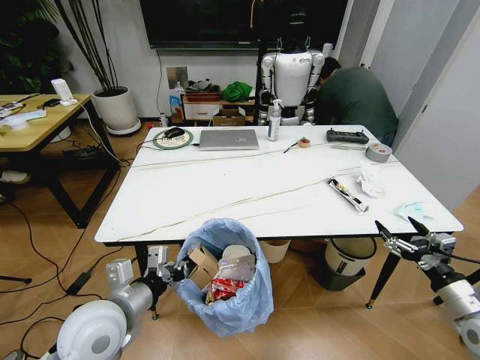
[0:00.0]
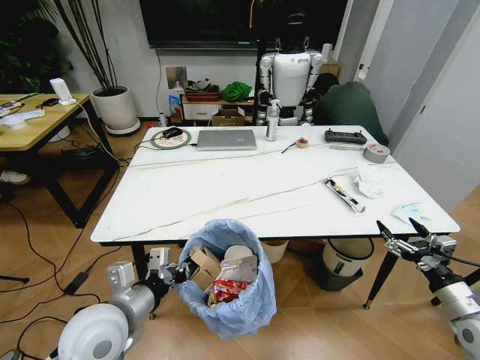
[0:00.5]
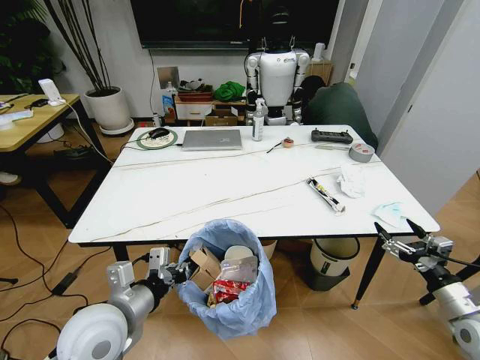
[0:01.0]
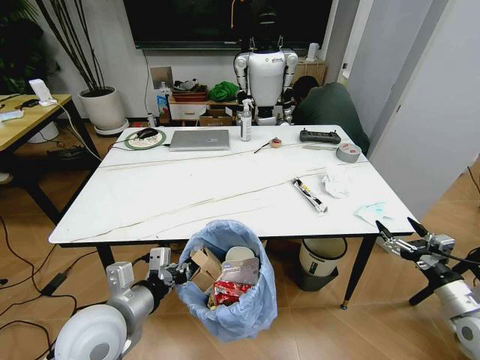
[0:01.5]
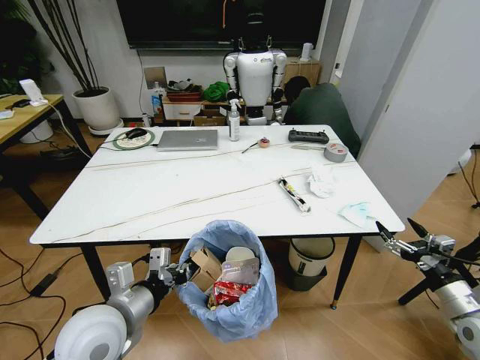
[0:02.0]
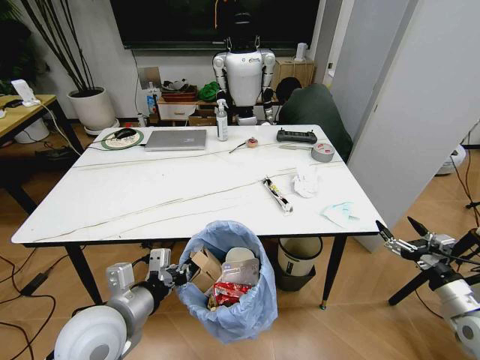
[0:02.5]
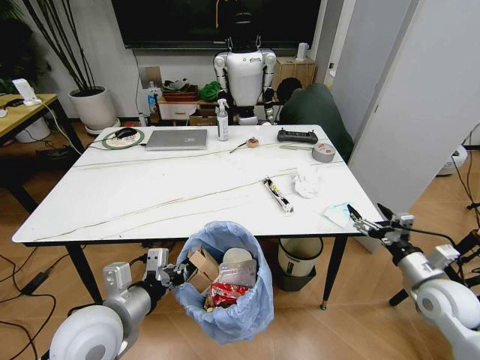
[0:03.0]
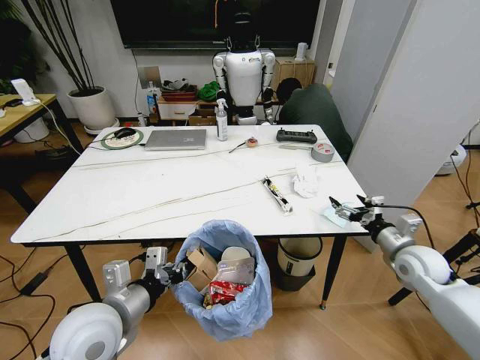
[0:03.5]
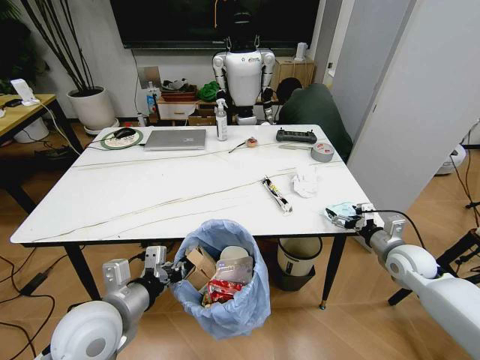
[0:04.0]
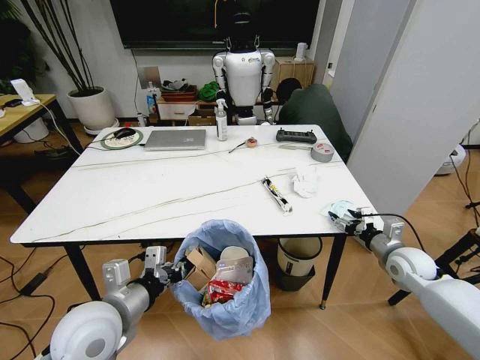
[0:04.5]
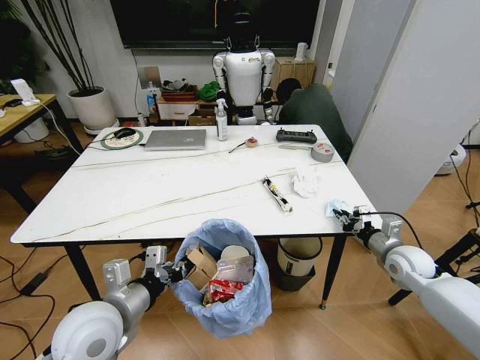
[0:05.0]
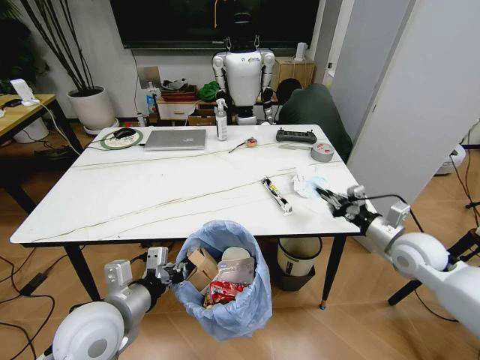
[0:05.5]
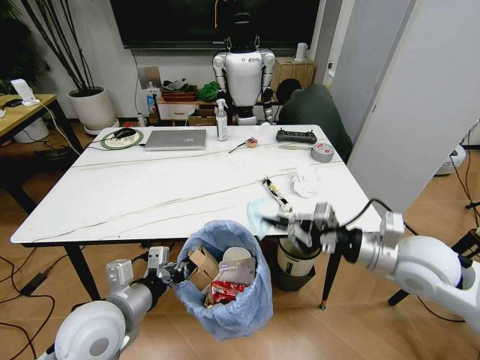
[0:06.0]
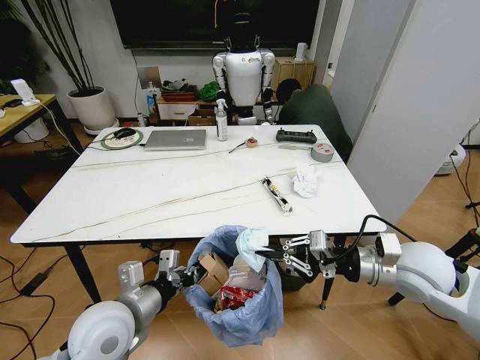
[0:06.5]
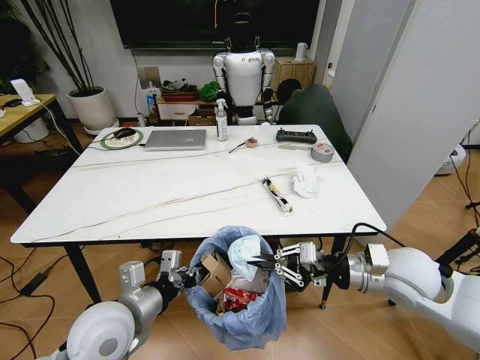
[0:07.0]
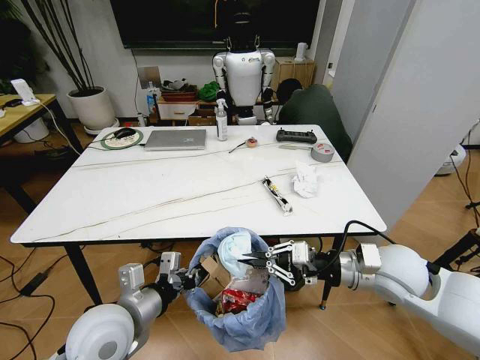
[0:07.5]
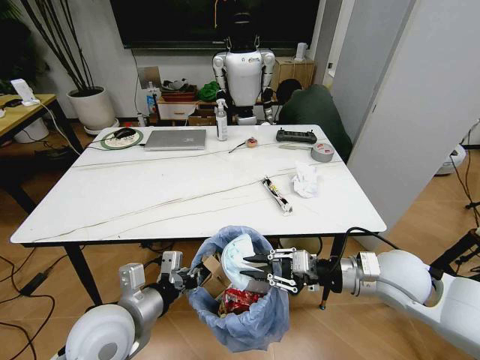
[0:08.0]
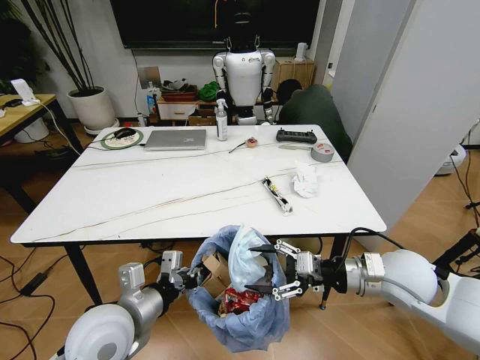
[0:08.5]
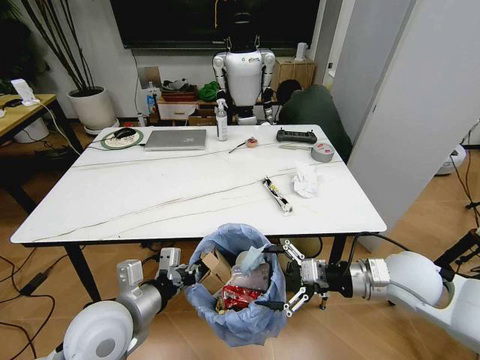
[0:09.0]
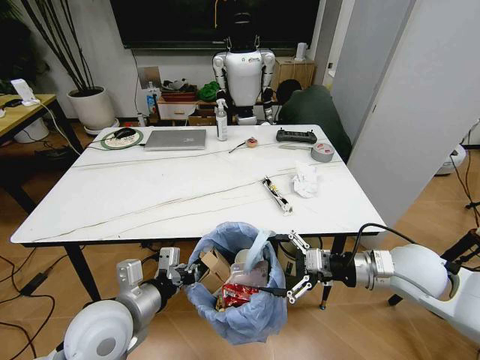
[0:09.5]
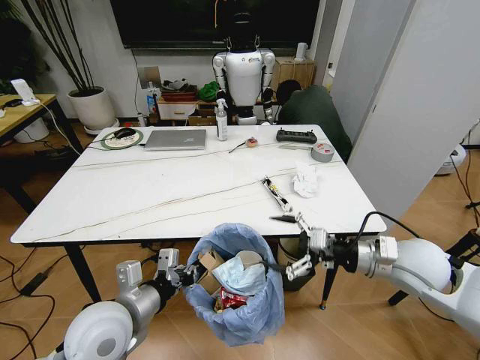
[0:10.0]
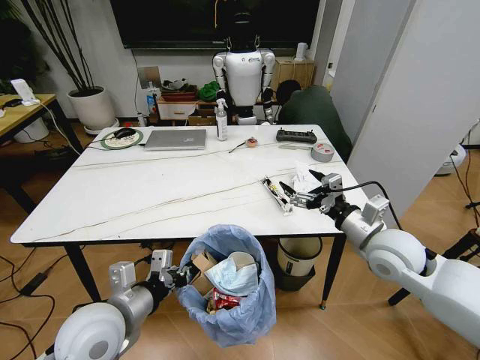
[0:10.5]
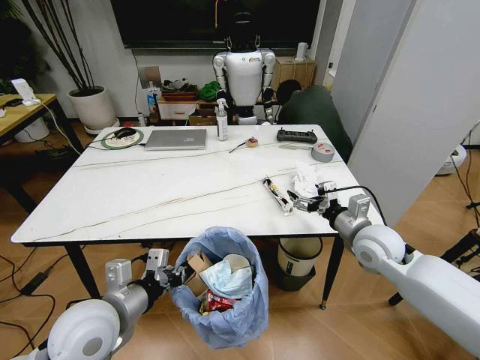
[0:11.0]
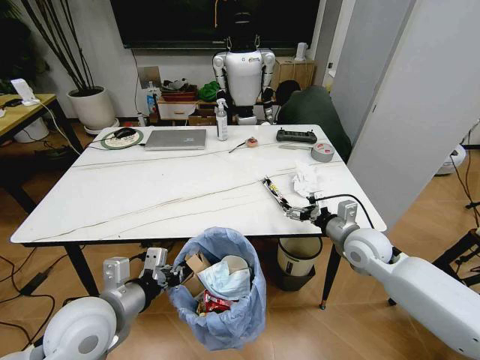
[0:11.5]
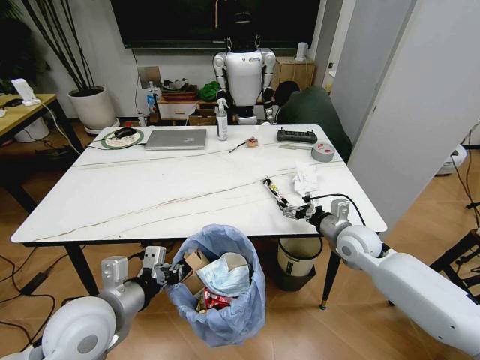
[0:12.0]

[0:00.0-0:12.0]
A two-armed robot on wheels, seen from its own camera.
Task of the whole recording: Pick up the trash bin and place the trash from the table into it.
0:02.0 to 0:04.0: The right gripper heads forward and to the left, covering about 15 cm.
0:04.0 to 0:06.0: The right gripper moves upward, to the left and backward, some 20 cm, and closes its fingers.
0:06.0 to 0:08.0: The right gripper changes place by some 5 cm.
0:08.0 to 0:10.0: The right gripper opens.
0:10.0 to 0:12.0: The right gripper is displaced forward and downward by about 15 cm.

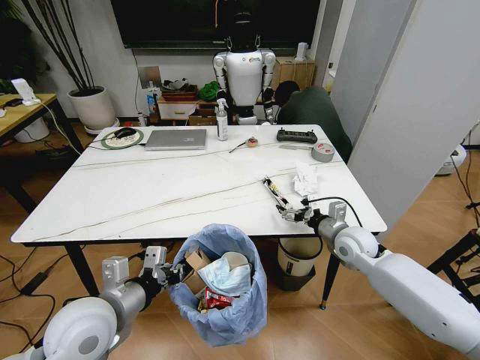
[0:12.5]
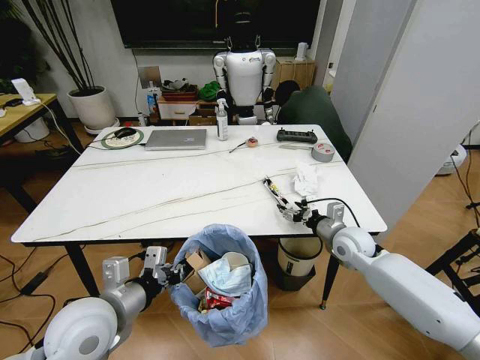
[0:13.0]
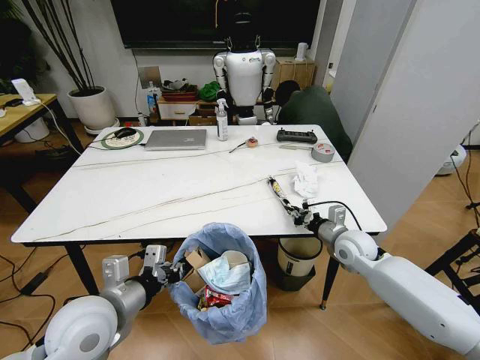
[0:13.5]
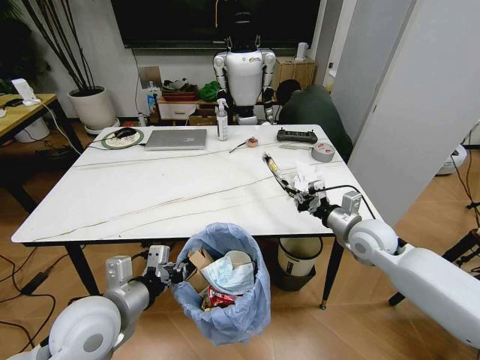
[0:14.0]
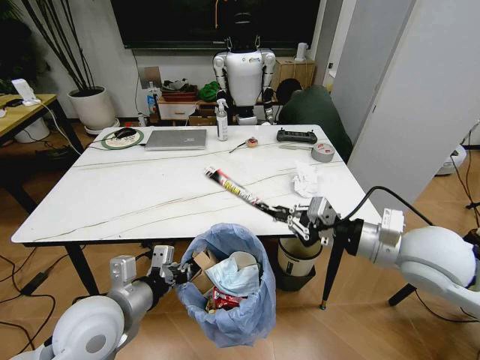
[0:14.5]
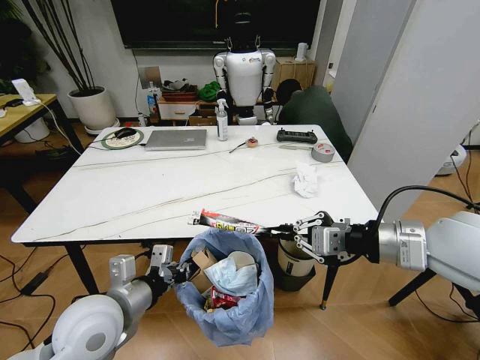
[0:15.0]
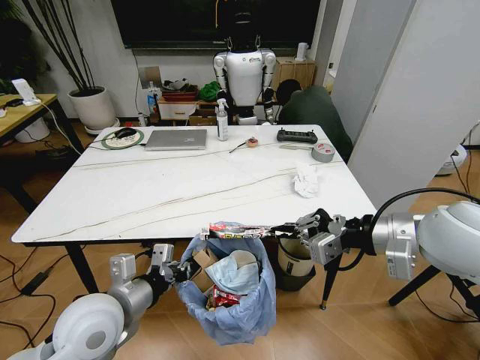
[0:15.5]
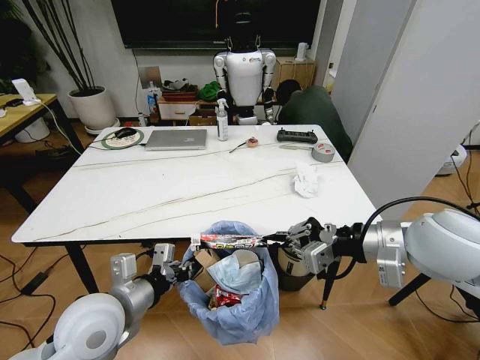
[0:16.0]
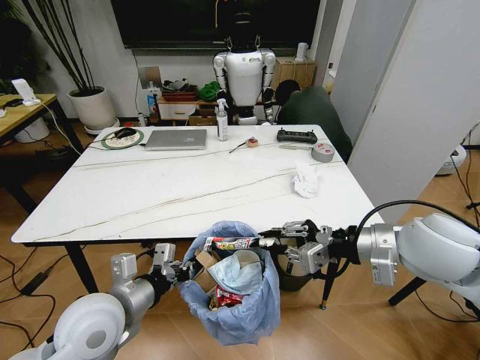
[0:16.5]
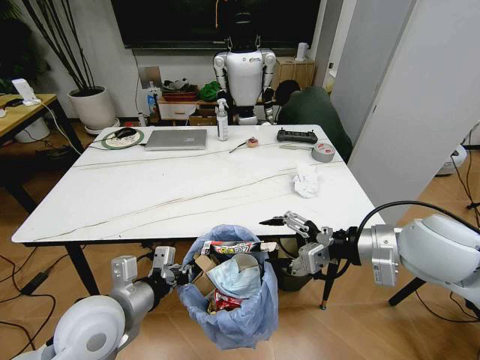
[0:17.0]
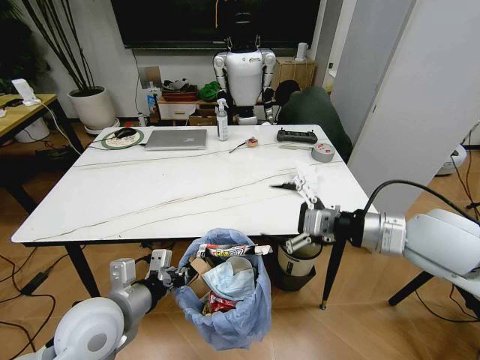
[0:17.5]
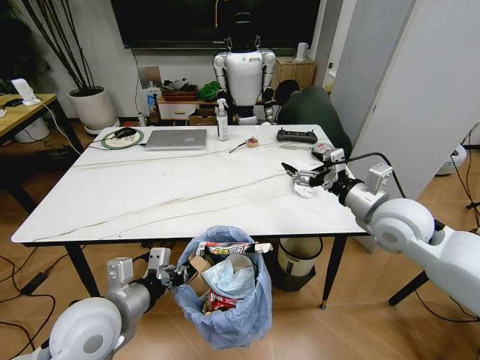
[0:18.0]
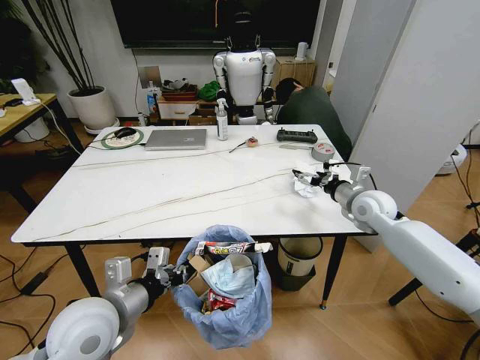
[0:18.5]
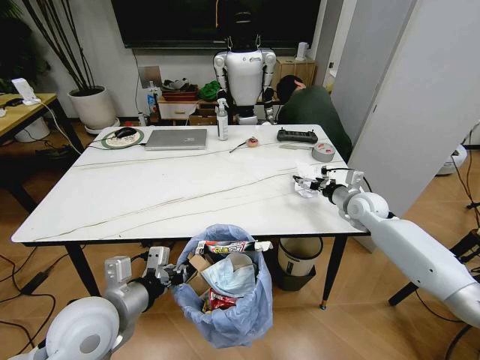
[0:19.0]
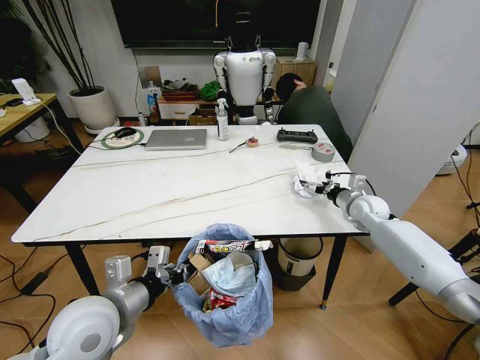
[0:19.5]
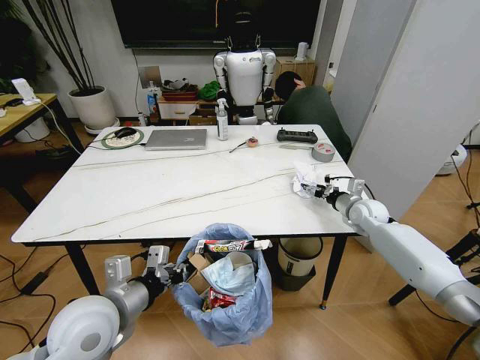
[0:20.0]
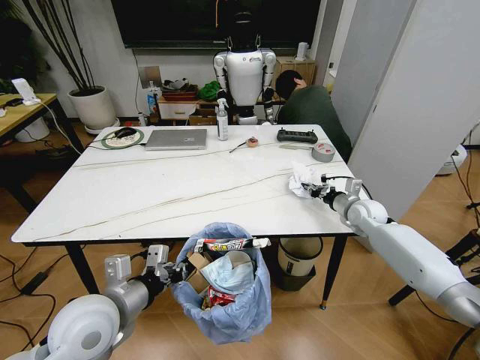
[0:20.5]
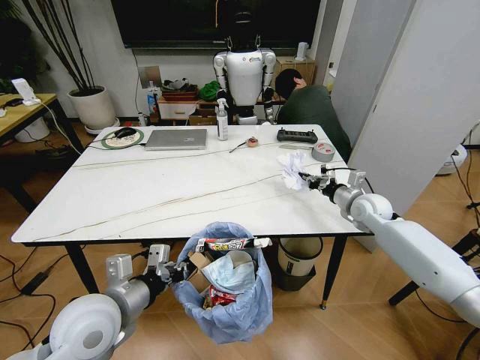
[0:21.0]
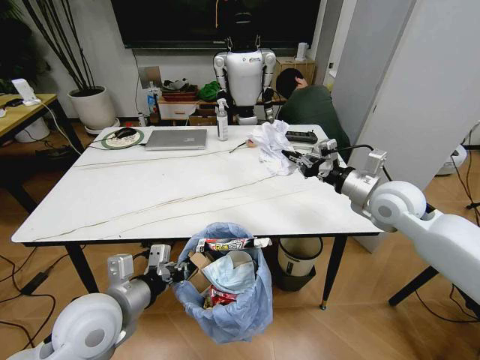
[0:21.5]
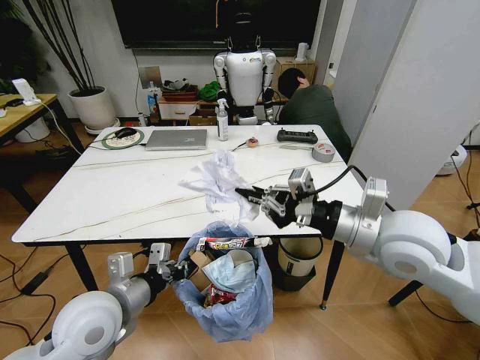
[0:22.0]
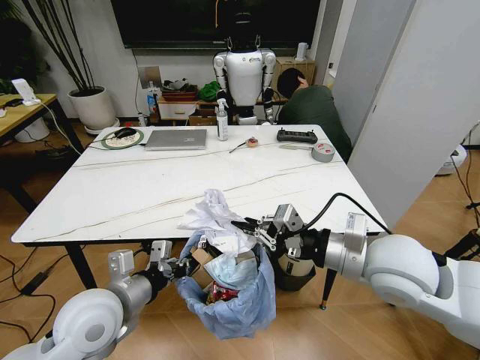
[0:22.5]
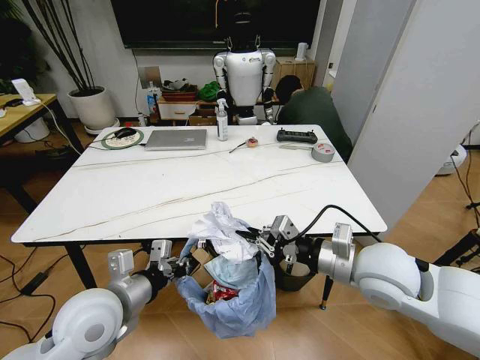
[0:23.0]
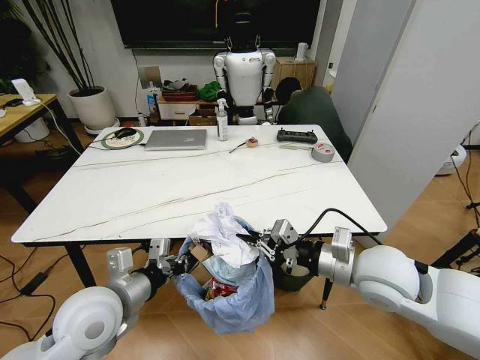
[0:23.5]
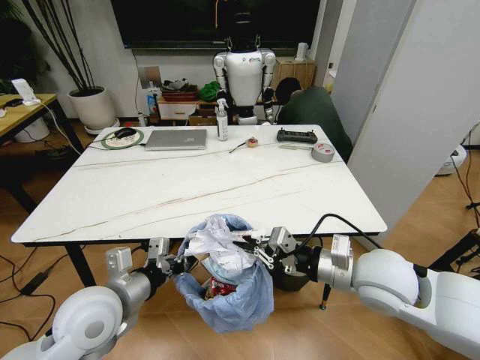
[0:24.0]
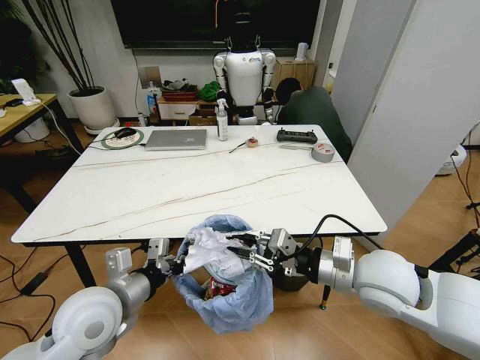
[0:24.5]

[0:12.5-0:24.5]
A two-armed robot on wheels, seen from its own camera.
Task of the whole recording: Pick up the trash bin and place the trash from the table into it.
0:12.5 to 0:14.5: The right gripper travels upward and backward by approximately 20 cm, and closes its fingers.
0:16.5 to 0:18.5: The right gripper travels forward and downward by approximately 20 cm, and opens up.
0:18.5 to 0:20.5: The right gripper moves downward, some 10 cm, and closes up.
0:20.5 to 0:22.5: The right gripper shifts about 35 cm backward, upward and to the left.
0:22.5 to 0:24.5: The grippers move only a little.

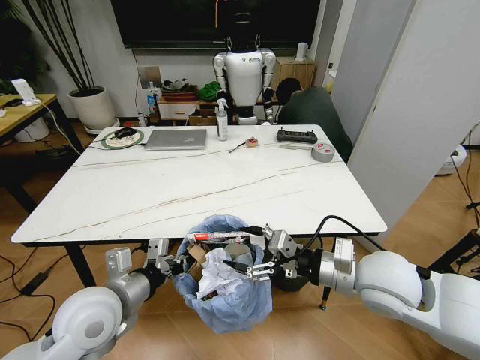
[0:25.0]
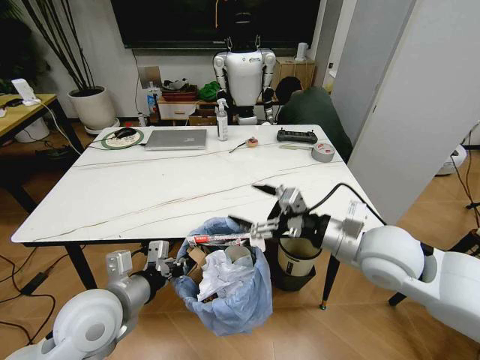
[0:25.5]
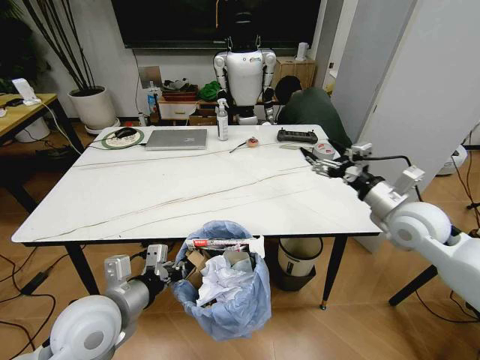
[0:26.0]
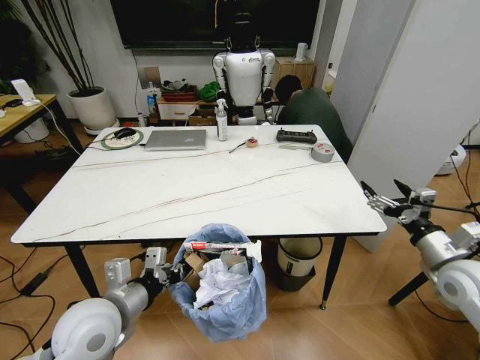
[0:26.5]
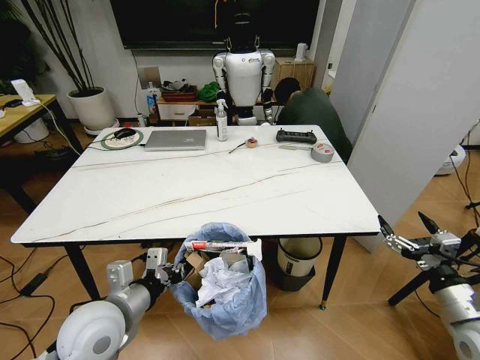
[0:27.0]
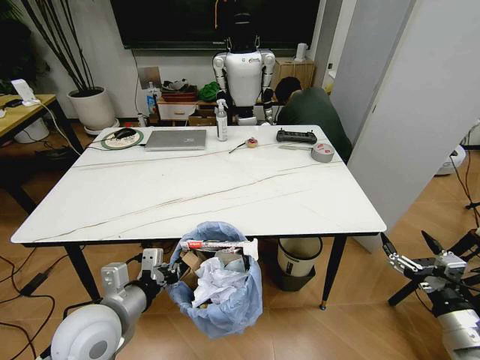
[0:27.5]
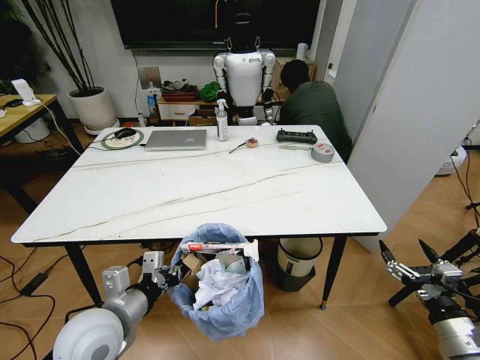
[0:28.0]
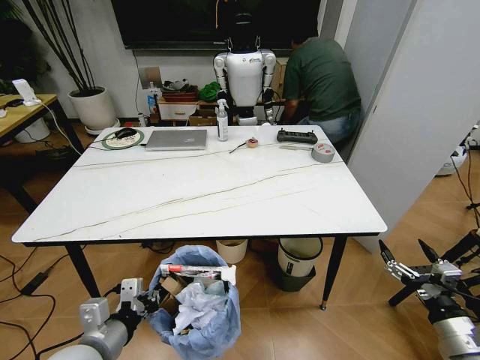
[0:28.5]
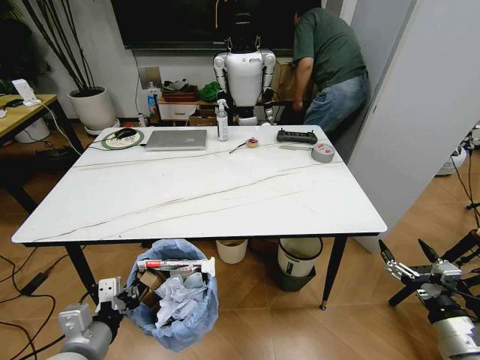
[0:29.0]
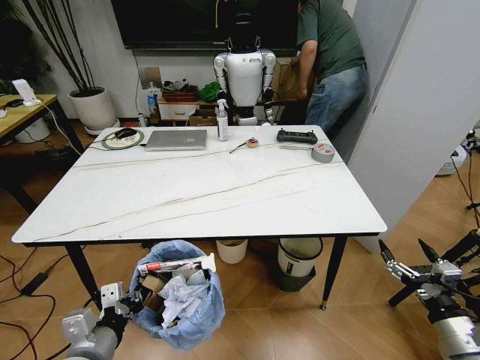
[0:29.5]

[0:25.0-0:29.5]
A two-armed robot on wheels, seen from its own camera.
Task of the whole recording: Pick up the trash bin and place the trash from the table into it.
0:25.0 to 0:27.0: The right gripper is displaced to the right and downward by about 20 cm.
0:27.0 to 0:29.5: The two grippers go roughly 5 cm backward.
